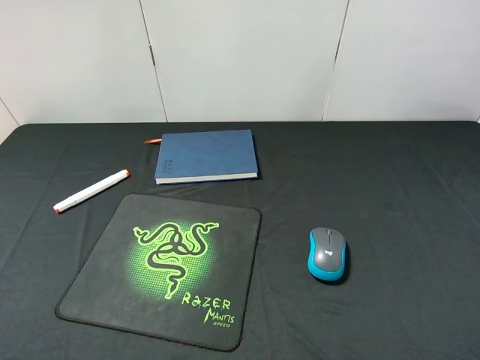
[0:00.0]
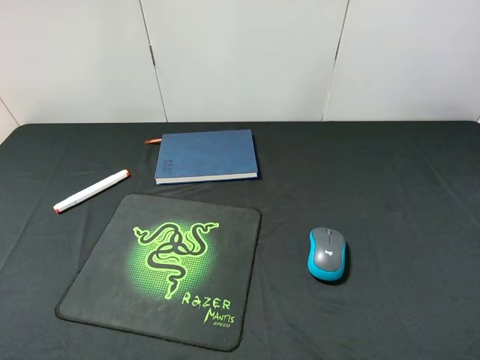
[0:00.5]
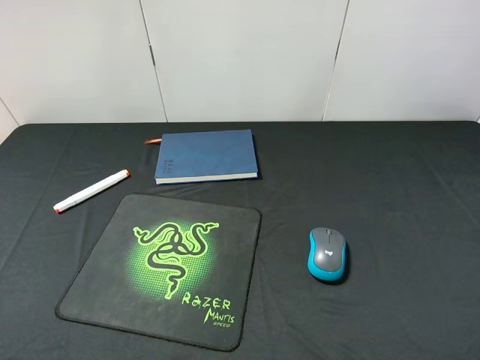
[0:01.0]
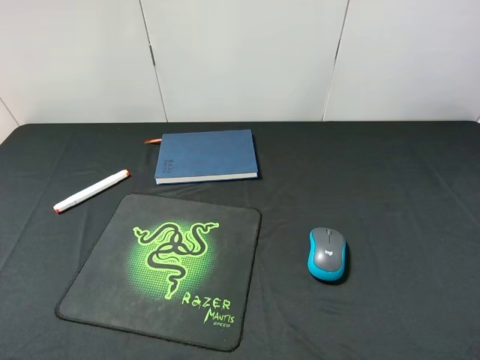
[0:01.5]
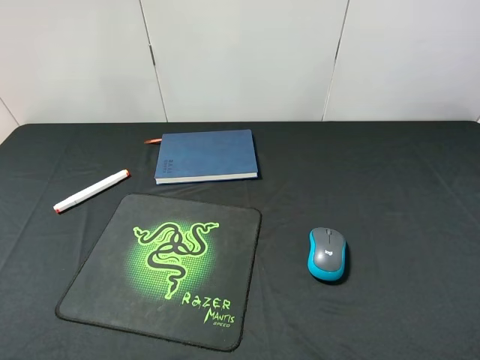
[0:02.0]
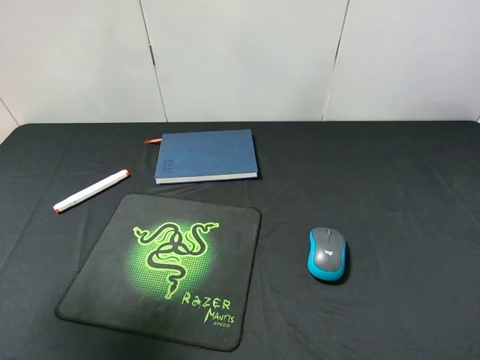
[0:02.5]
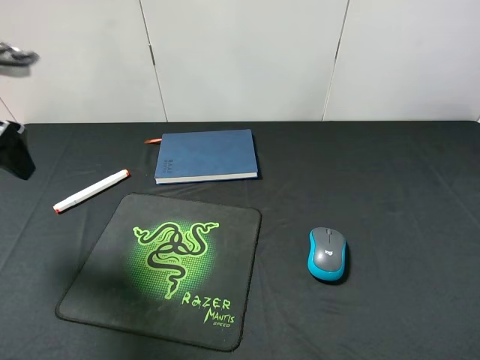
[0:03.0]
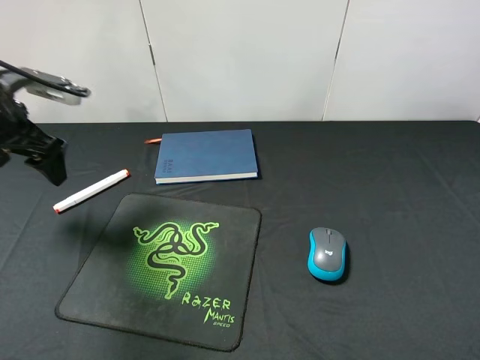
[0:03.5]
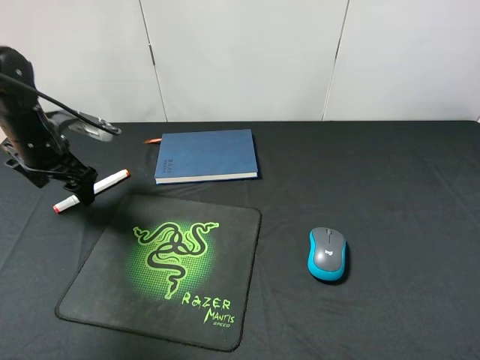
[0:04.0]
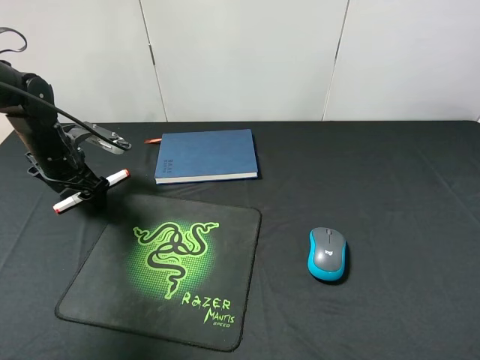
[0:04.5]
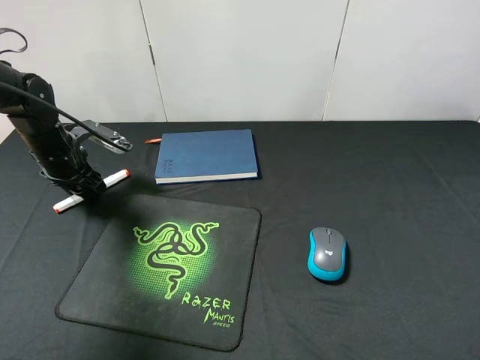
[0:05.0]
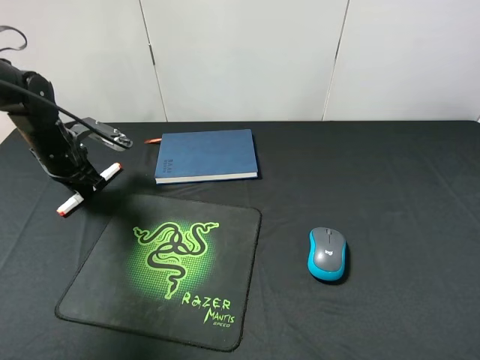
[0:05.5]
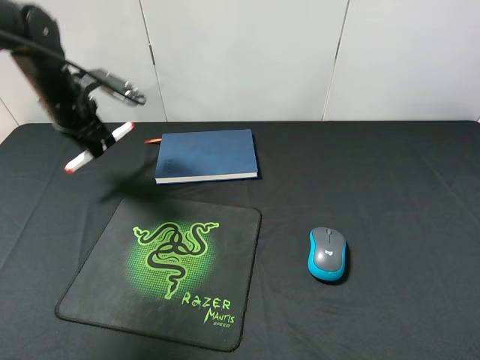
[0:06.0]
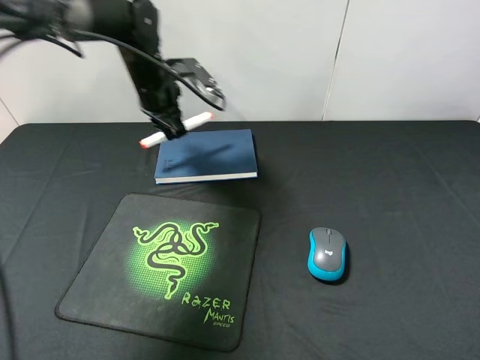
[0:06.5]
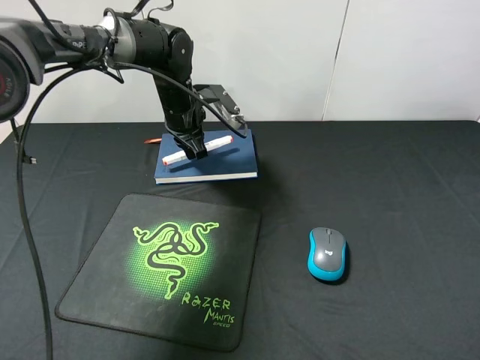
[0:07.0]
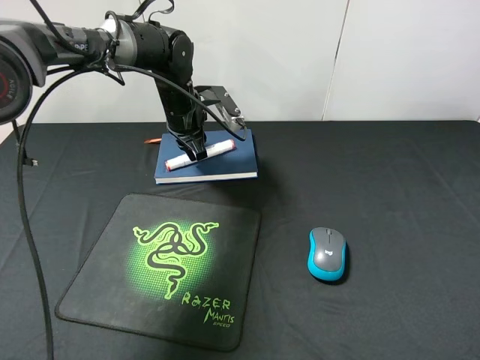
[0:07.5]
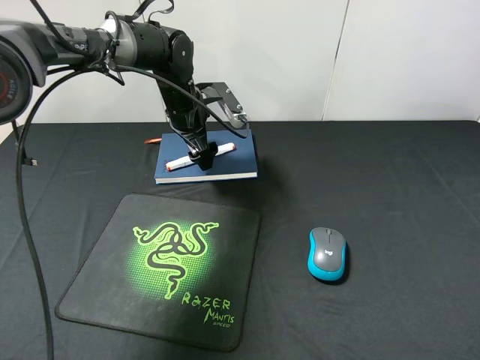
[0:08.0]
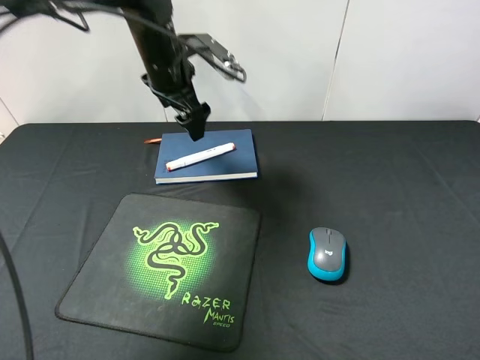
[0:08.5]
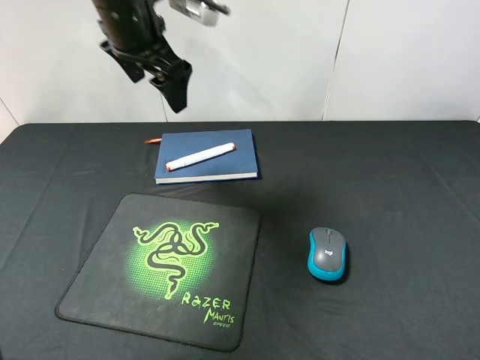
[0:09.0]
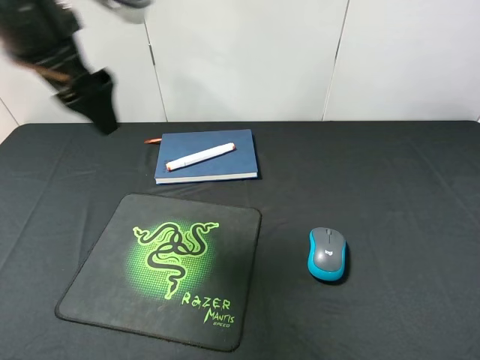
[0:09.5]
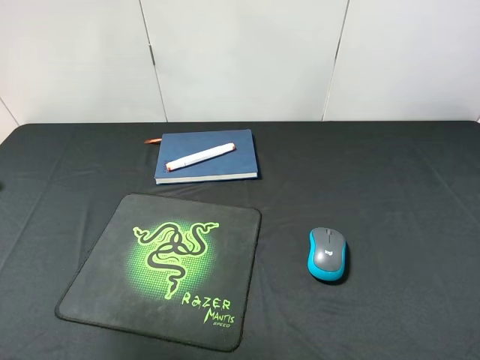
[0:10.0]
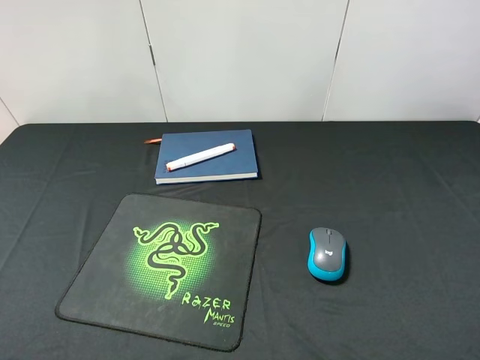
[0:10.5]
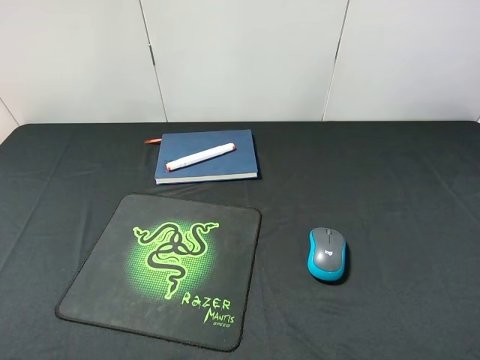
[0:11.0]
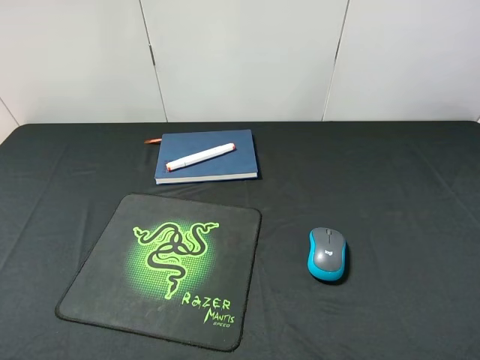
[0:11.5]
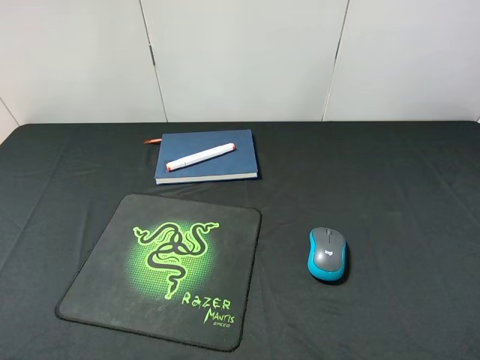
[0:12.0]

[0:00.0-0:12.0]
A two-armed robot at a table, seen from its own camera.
Step, 0:00.0 to 0:05.5: Pick up the marker pen with left gripper.
Step, 0:06.0 to 0:08.0: Place the marker pen on the notebook with left gripper.
0:02.0 to 0:04.0: The left gripper shifts roughly 35 cm forward and downward.
0:04.0 to 0:06.0: The left gripper shifts approximately 10 cm upward and forward, and closes its fingers.
0:06.0 to 0:08.0: The left gripper travels to the right by some 15 cm, and opens.
0:08.0 to 0:10.0: The left gripper goes roughly 40 cm backward, upward and to the left.
0:10.0 to 0:12.0: The left gripper is displaced backward and downward by roughly 15 cm.

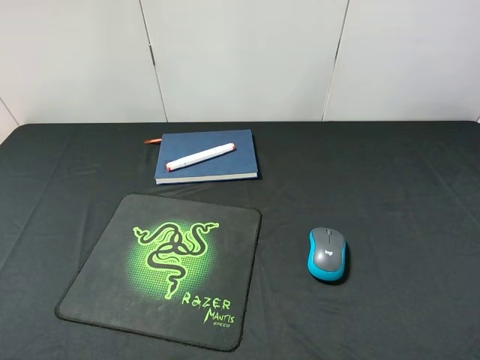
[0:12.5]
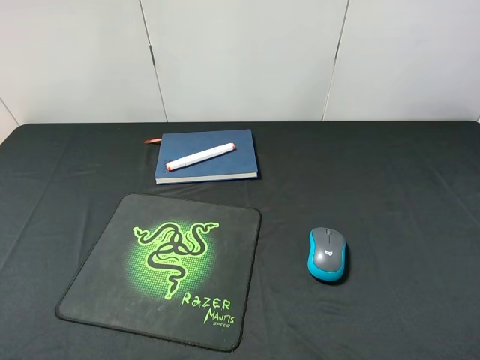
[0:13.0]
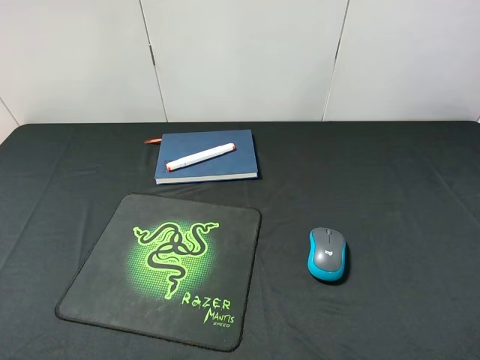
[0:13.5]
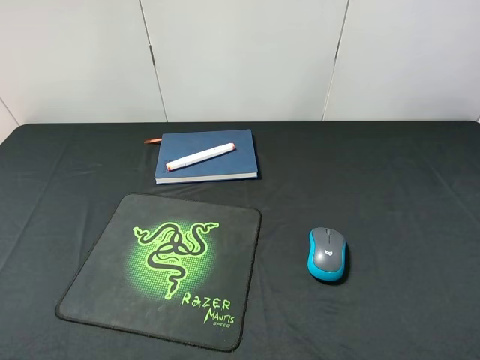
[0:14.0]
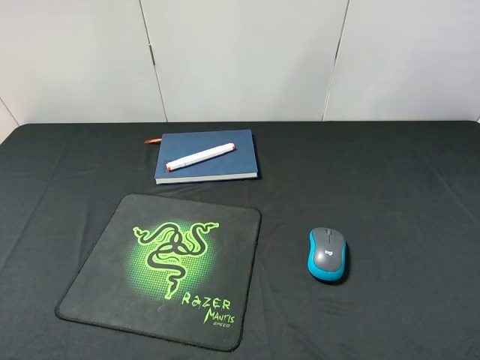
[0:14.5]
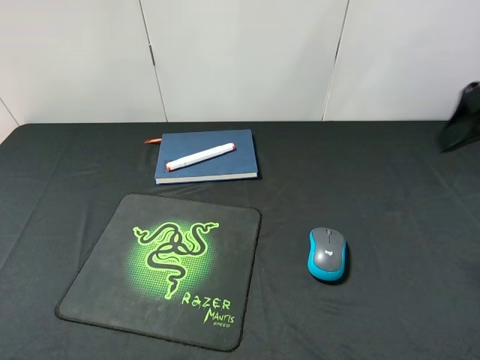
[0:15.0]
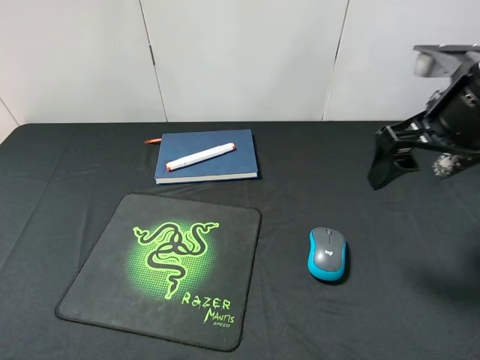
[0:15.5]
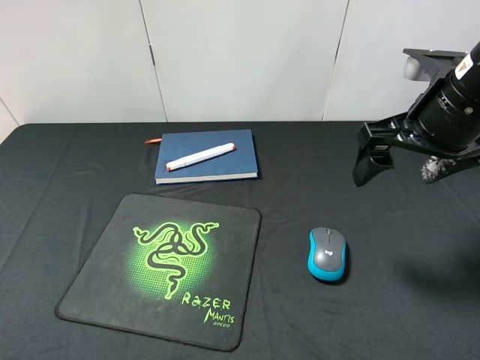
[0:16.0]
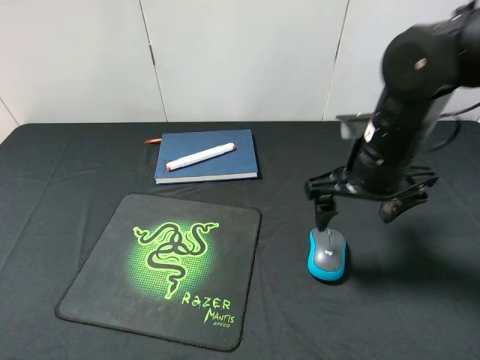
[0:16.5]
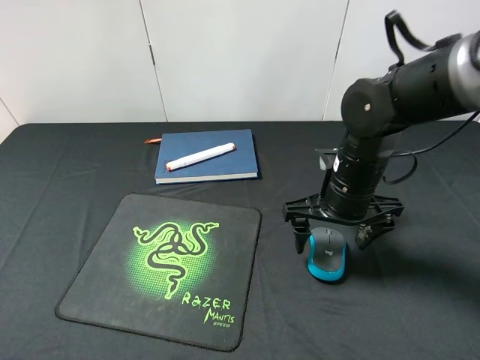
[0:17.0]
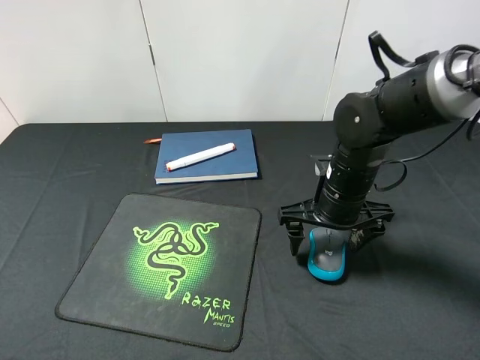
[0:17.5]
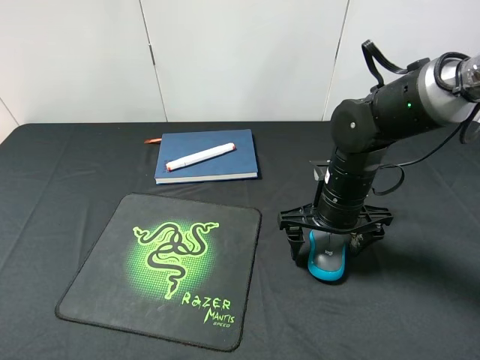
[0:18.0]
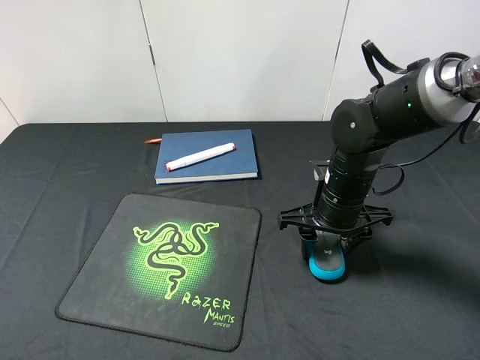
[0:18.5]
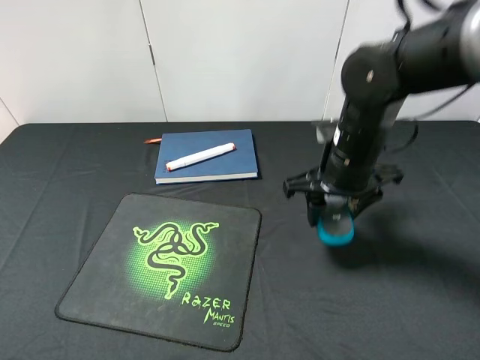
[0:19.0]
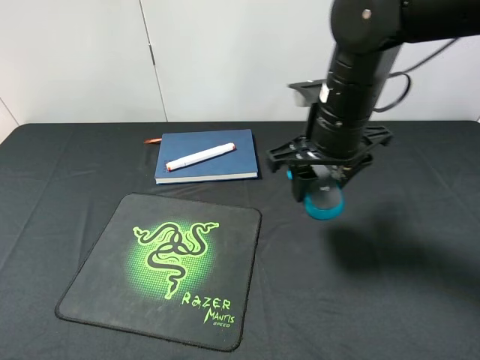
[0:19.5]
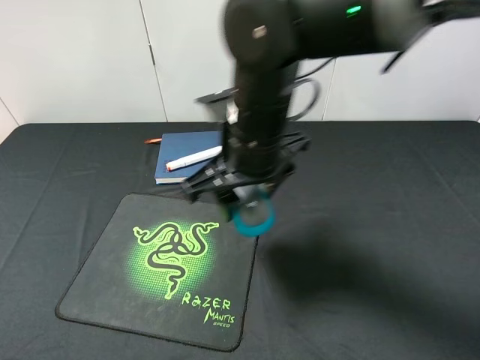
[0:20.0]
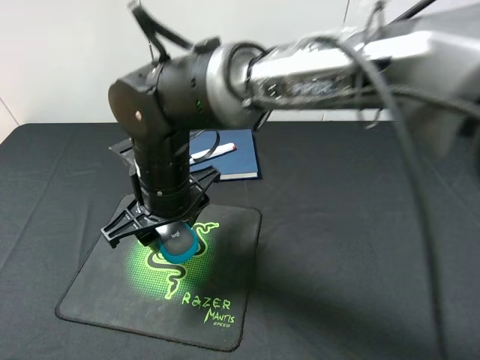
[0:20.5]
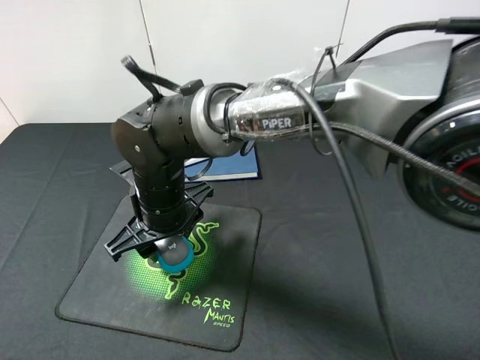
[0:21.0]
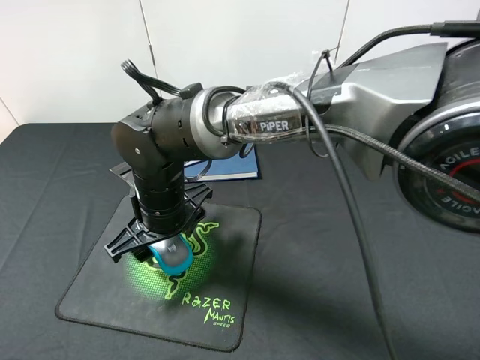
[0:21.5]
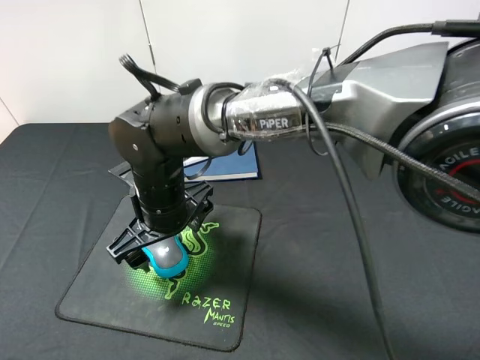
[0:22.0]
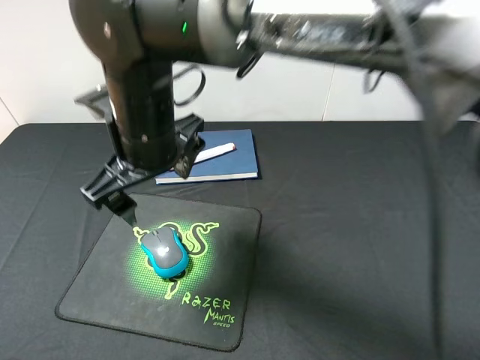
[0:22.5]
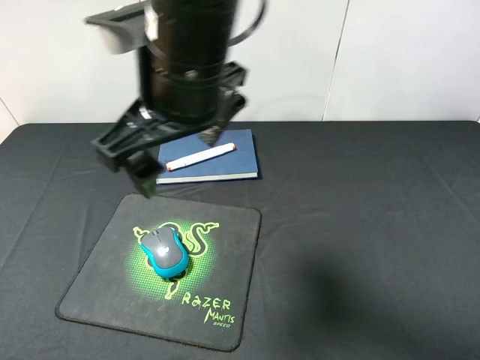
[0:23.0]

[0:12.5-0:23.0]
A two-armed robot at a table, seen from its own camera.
Step, 0:12.5 to 0:18.5: Pick up the mouse with right gripper.
Step, 0:19.0 to 0:21.5: Place the mouse on the mouse pad with right gripper.
0:14.5 to 0:16.5: The right gripper travels to the left, downward and forward by about 25 cm.
0:16.5 to 0:19.0: The right gripper closes.
0:19.0 to 0:21.0: The right gripper heads to the left, covering roughly 25 cm.
0:21.0 to 0:23.0: The right gripper heads upward, covering roughly 20 cm, and opens.

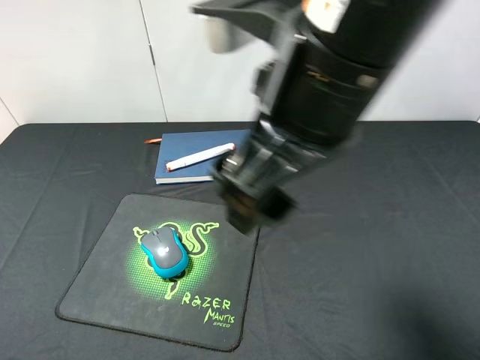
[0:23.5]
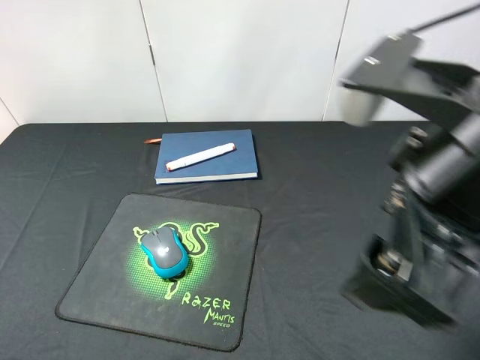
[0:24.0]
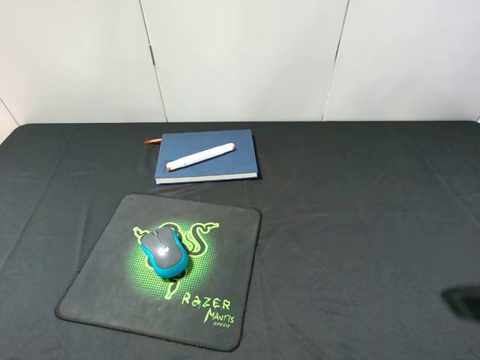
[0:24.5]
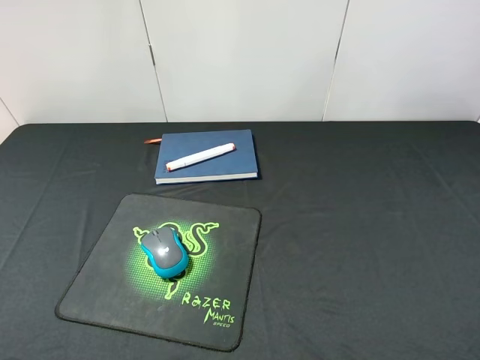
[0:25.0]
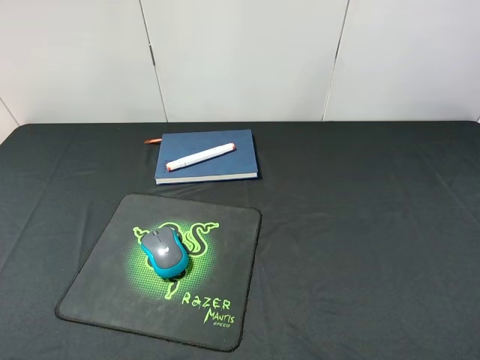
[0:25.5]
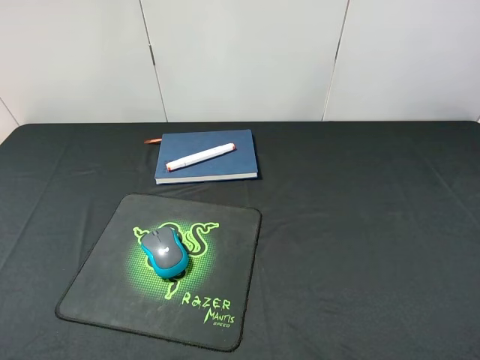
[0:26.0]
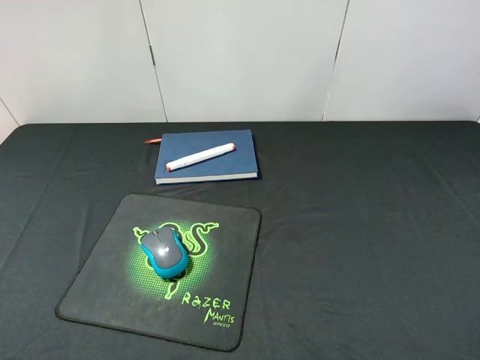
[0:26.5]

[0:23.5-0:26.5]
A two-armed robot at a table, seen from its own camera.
0:23.5 to 0:25.0: The right gripper shifts some 25 cm to the right and backward.
